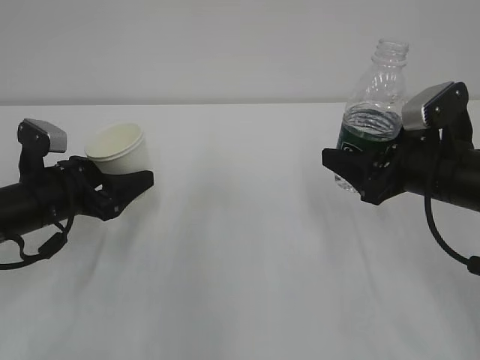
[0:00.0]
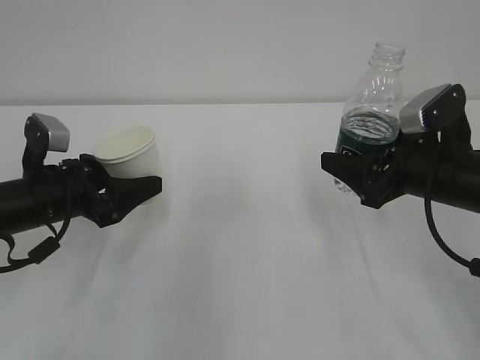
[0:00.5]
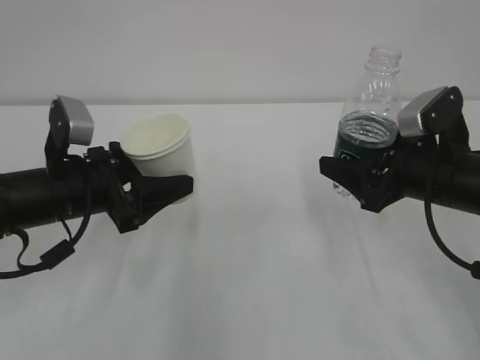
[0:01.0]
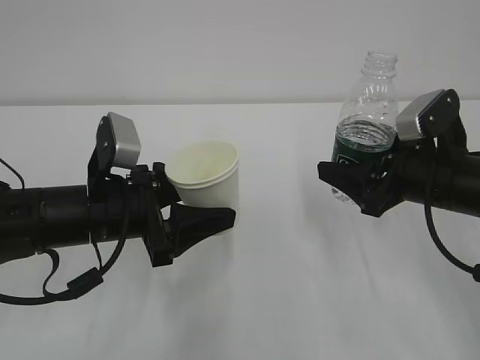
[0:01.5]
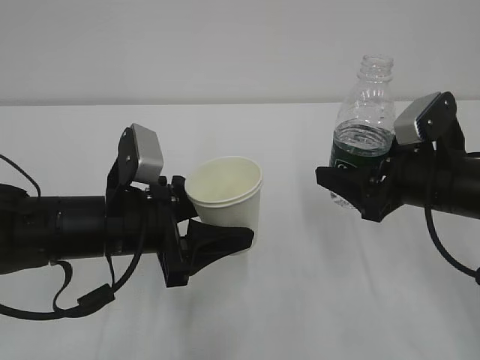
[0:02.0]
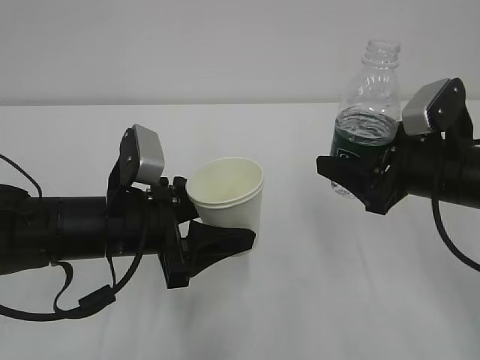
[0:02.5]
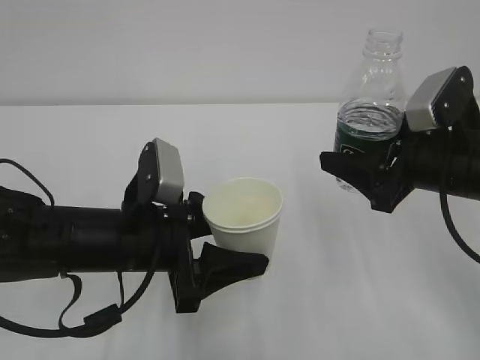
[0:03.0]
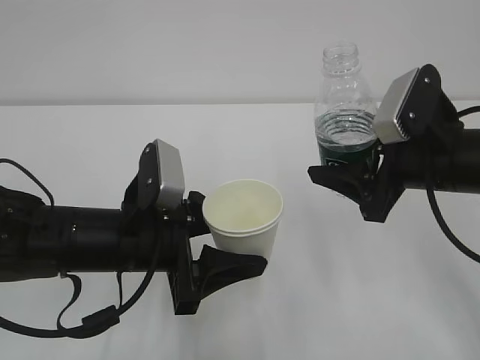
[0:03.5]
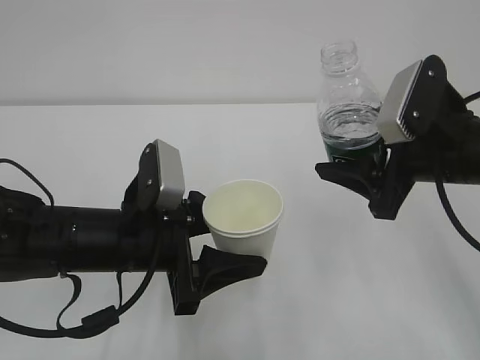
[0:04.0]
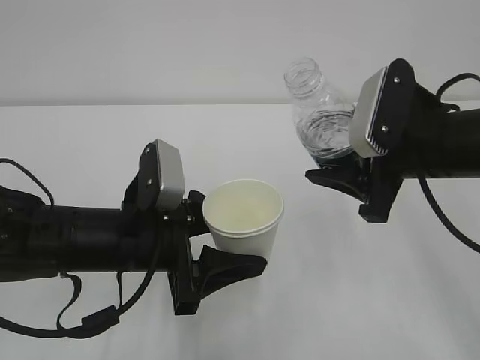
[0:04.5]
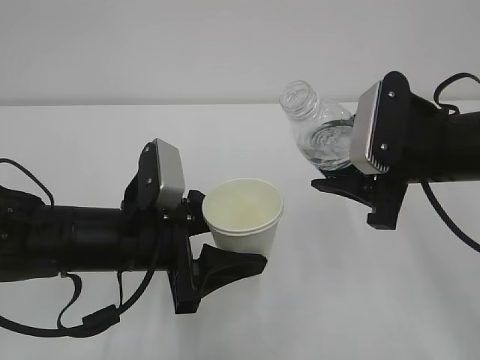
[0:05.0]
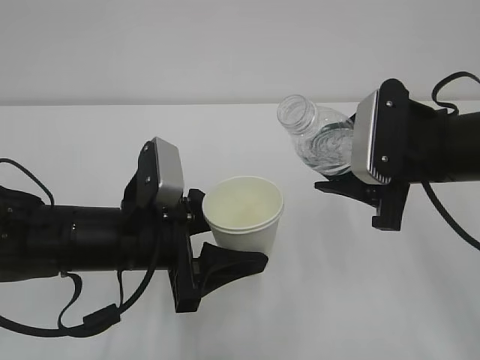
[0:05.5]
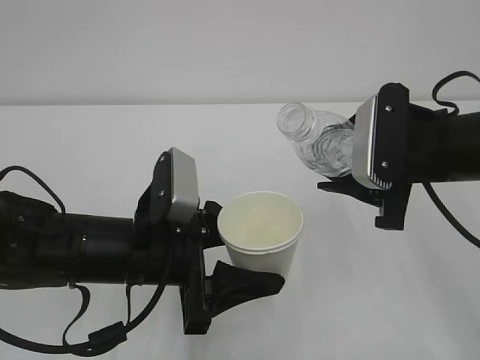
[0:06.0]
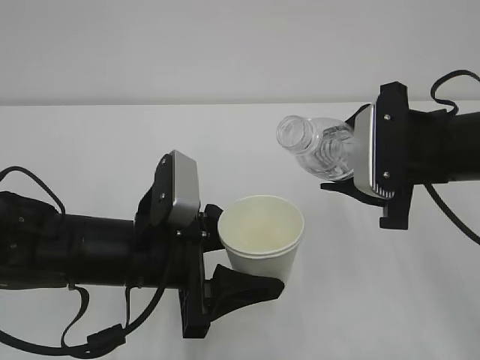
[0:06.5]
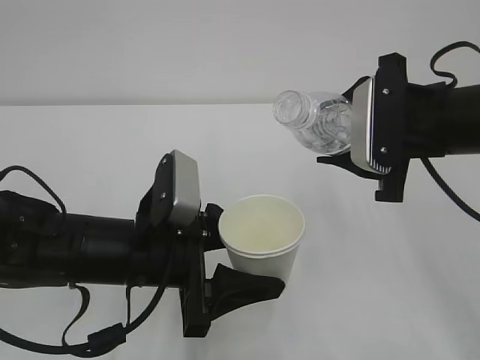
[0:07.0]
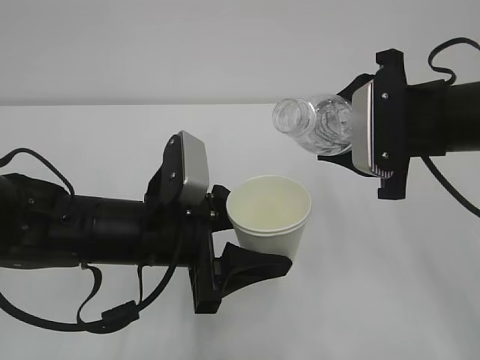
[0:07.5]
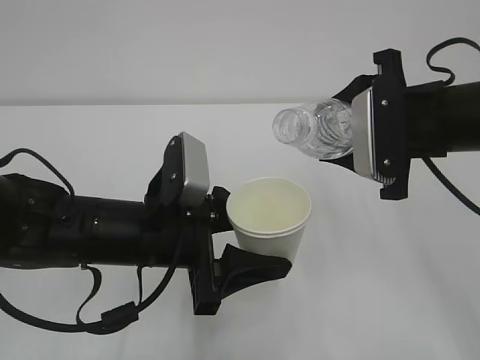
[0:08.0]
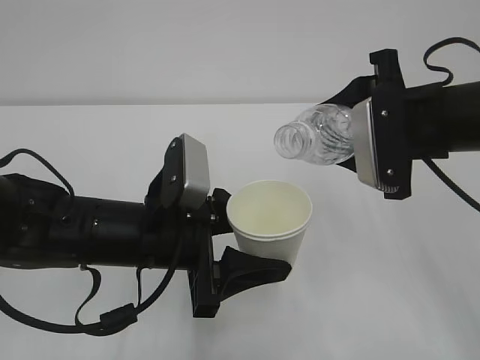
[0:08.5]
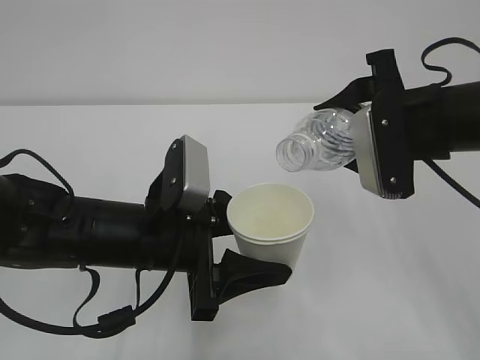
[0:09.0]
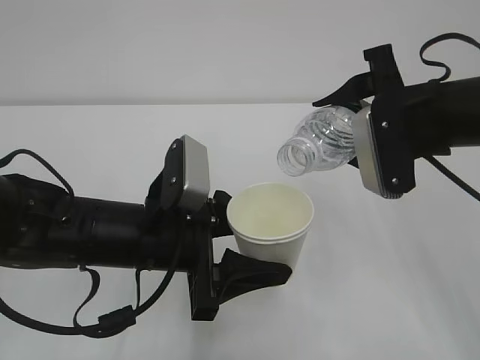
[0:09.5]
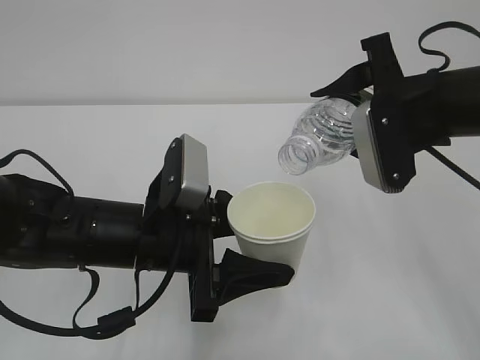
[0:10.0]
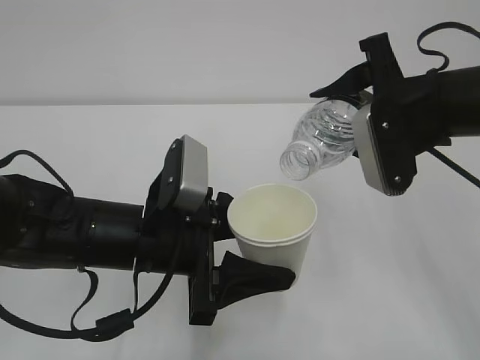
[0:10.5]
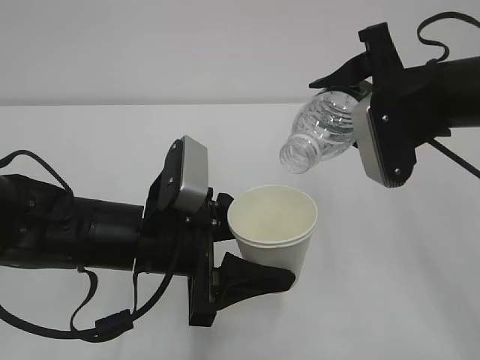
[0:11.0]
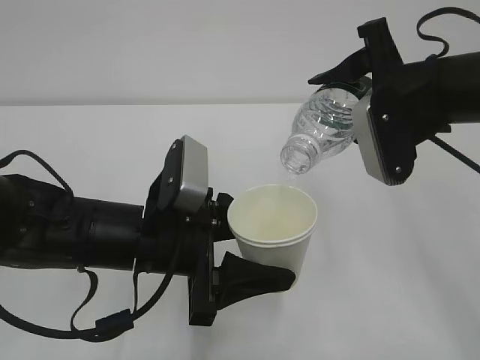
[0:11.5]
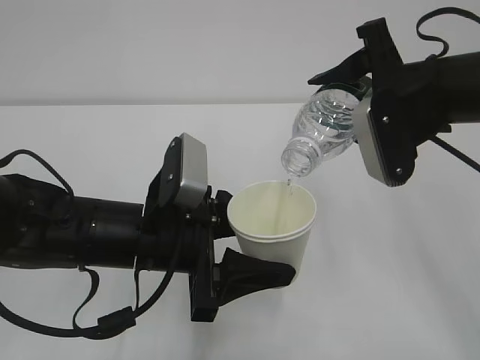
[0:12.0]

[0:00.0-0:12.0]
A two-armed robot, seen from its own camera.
0:00.0 to 0:02.0: The left gripper heads to the right and backward, covering about 15 cm.
0:02.0 to 0:04.0: The right gripper moves upward, some 5 cm.
0:08.0 to 0:10.0: There are only small adjustments of the grippers.
0:10.0 to 0:12.0: The grippers move only a little.

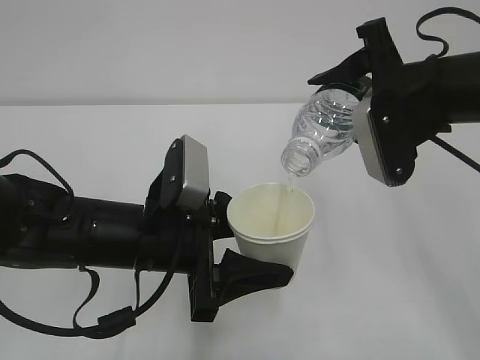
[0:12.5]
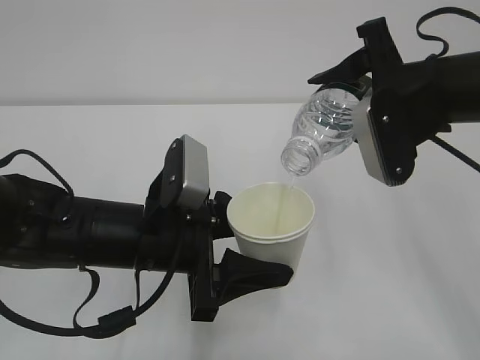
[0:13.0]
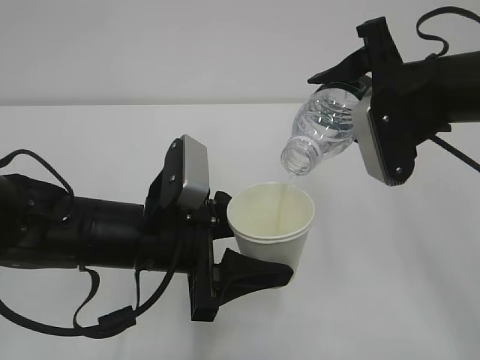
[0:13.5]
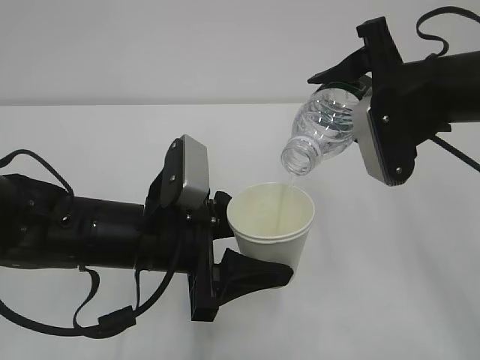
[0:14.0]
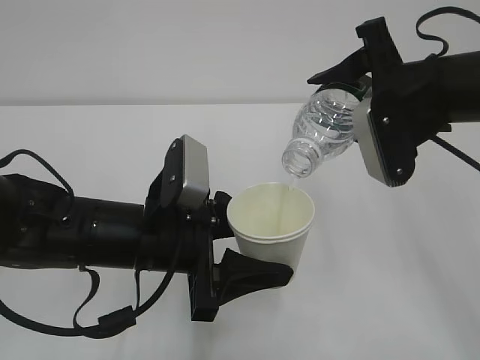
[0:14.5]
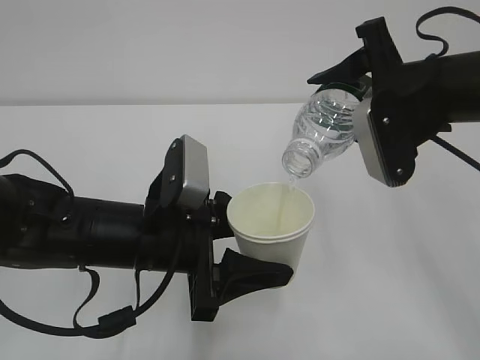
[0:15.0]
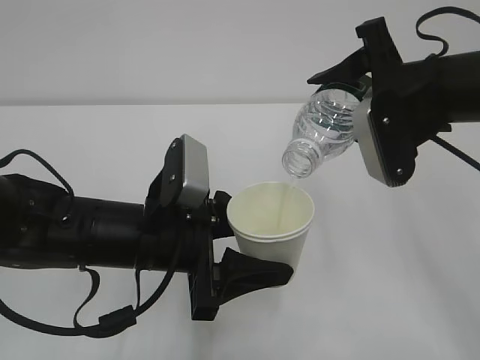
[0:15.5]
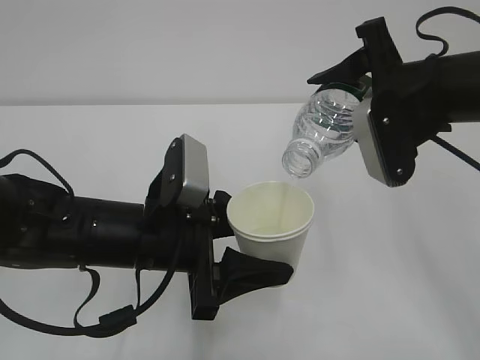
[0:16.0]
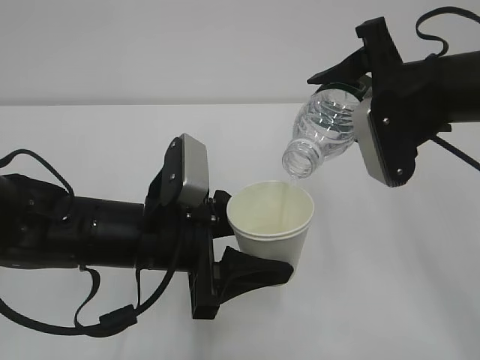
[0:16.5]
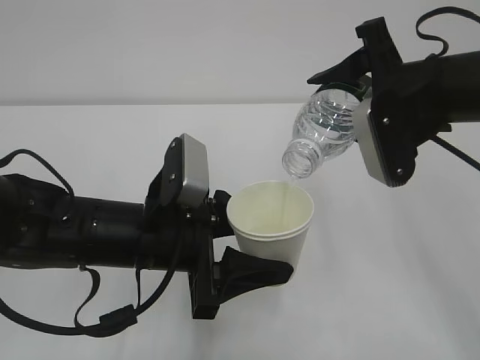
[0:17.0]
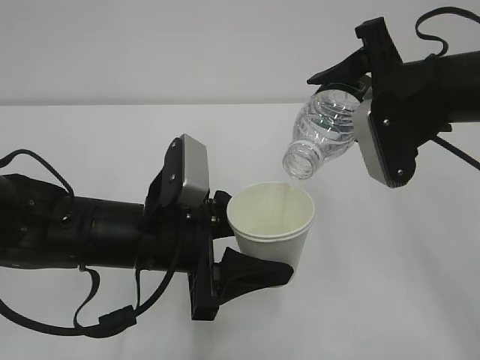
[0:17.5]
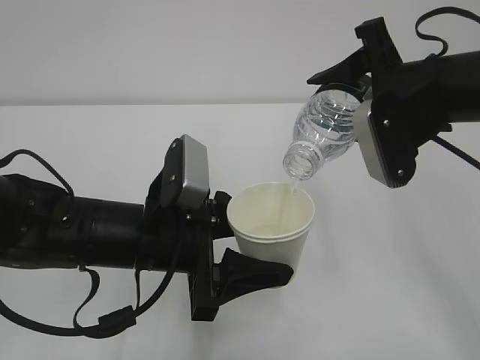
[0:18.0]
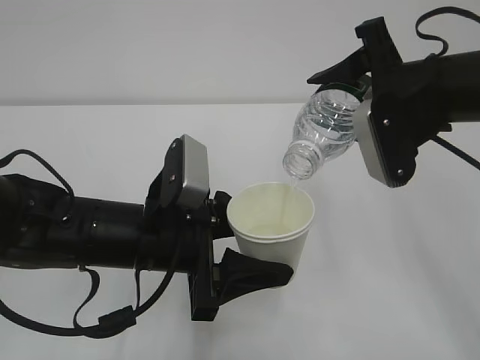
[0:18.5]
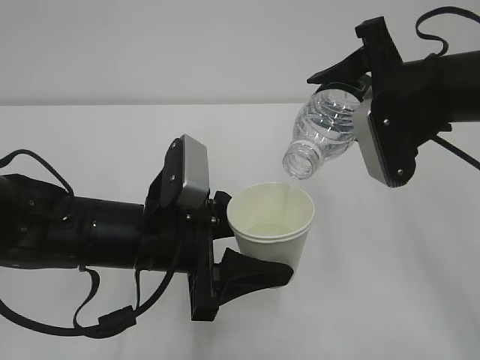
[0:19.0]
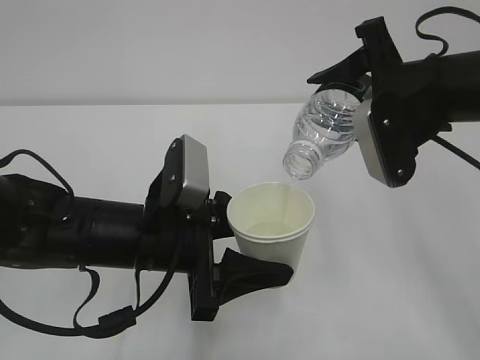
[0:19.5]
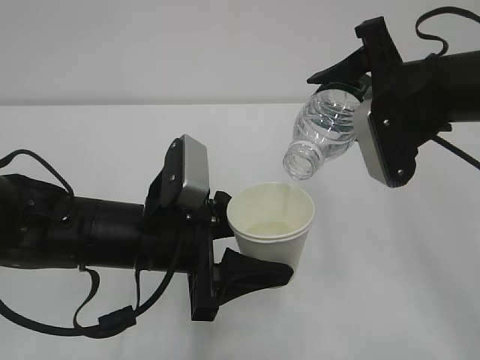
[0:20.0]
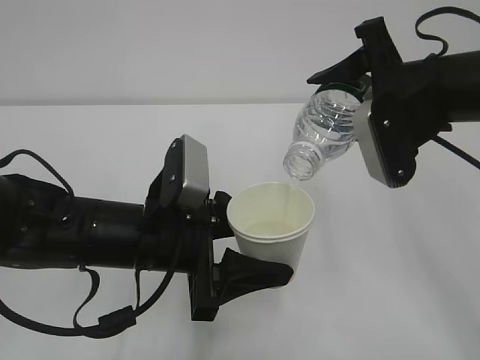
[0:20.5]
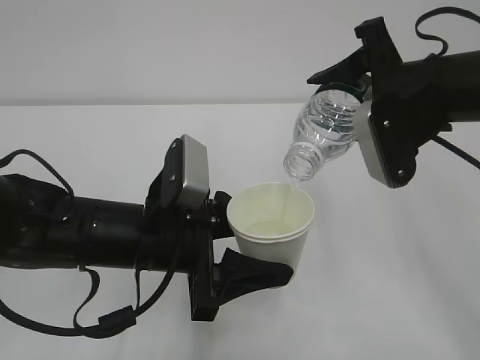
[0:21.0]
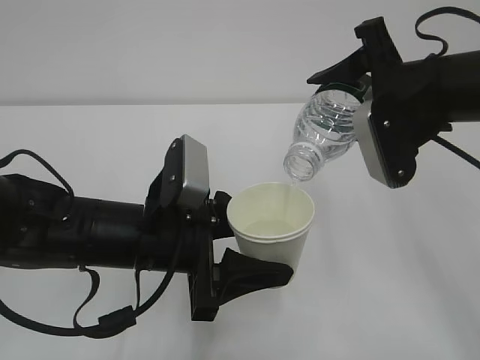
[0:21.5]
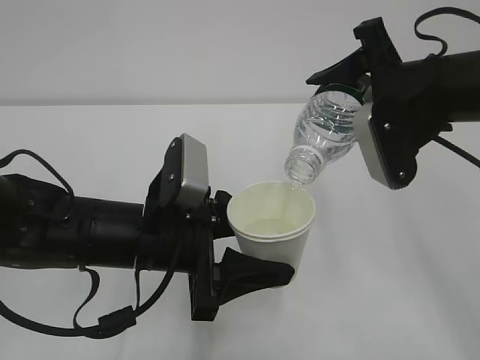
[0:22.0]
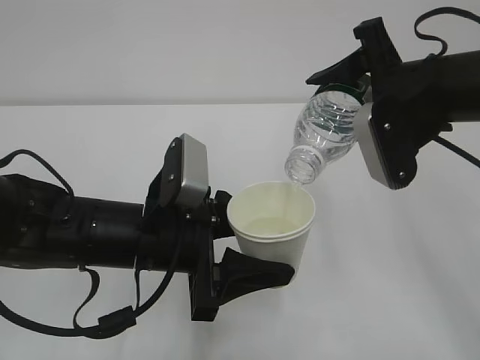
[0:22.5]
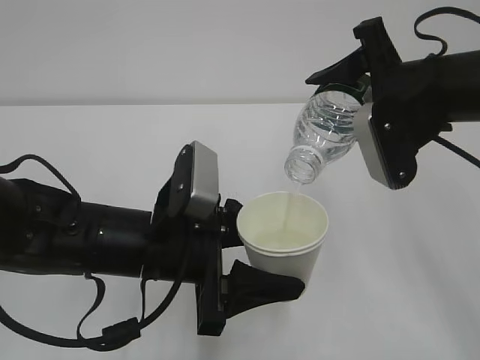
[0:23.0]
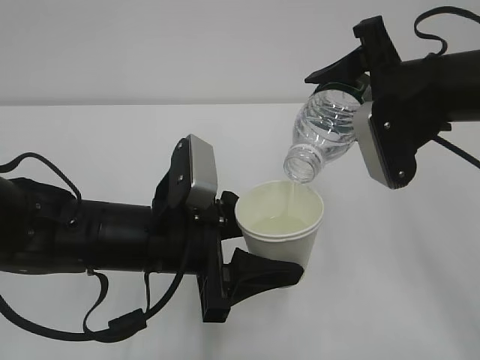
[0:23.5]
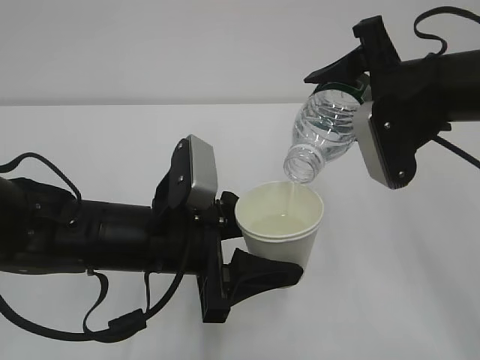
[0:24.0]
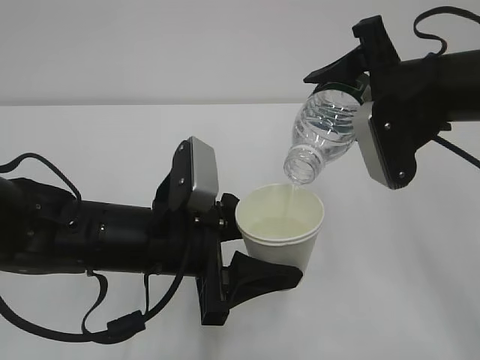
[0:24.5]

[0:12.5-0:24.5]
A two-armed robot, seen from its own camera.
0:12.5 to 0:22.5: The two grippers keep their place.
0:22.5 to 0:24.5: Both grippers stay put.

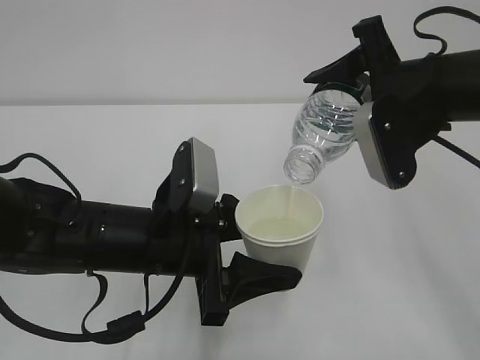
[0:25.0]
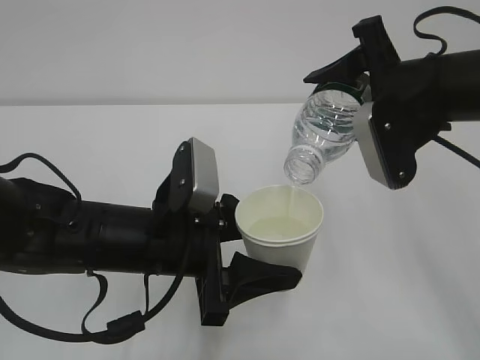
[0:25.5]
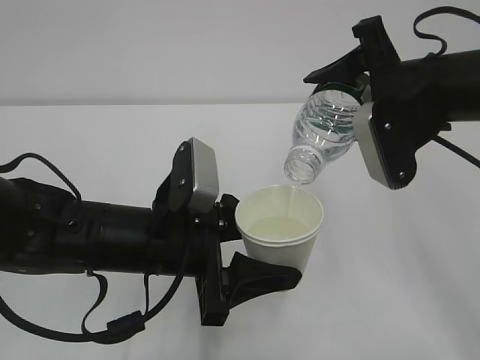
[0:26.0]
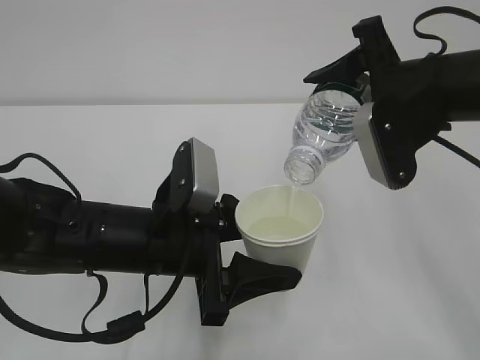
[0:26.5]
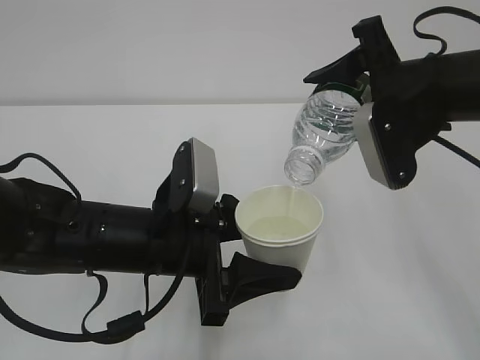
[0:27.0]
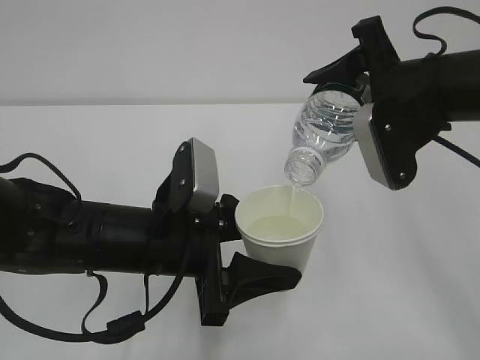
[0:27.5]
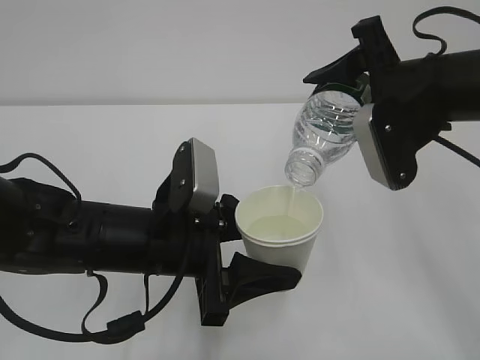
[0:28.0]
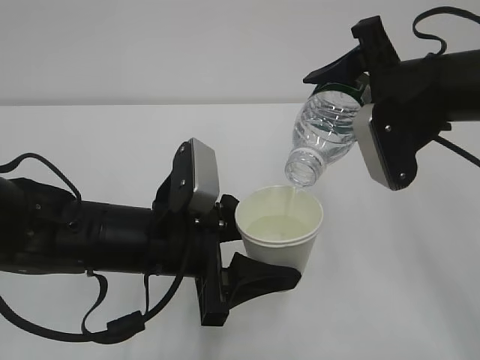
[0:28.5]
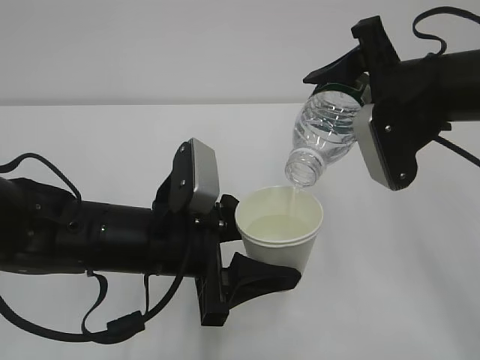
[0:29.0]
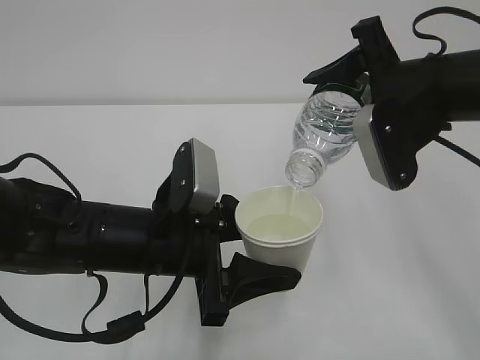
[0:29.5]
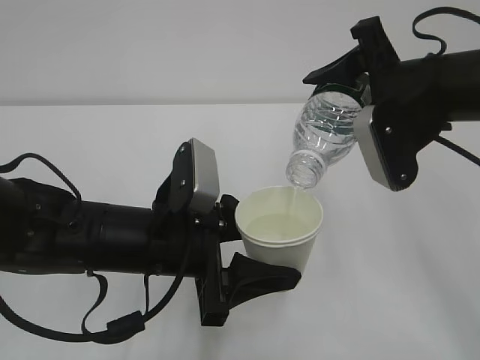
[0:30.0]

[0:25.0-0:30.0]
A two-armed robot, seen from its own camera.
0:25.0 to 0:30.0: Both grippers stay about where they are.
